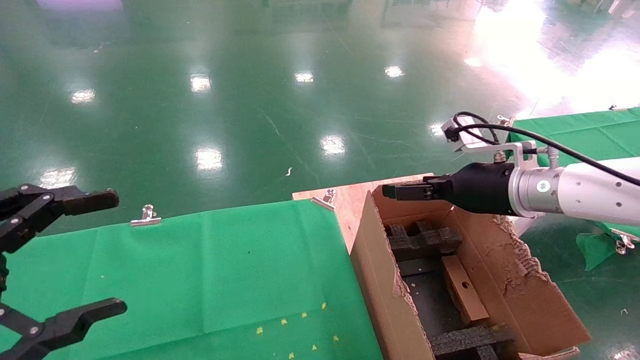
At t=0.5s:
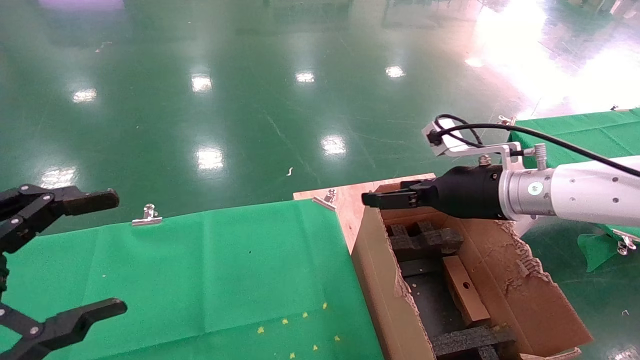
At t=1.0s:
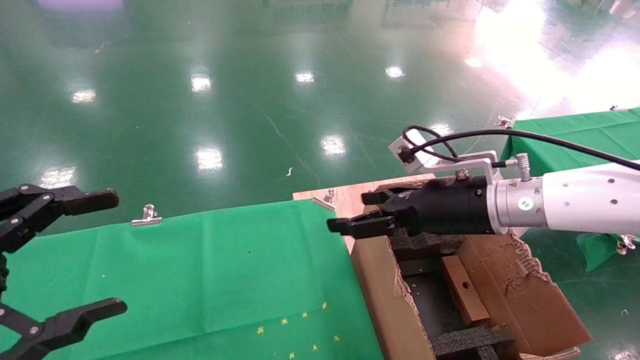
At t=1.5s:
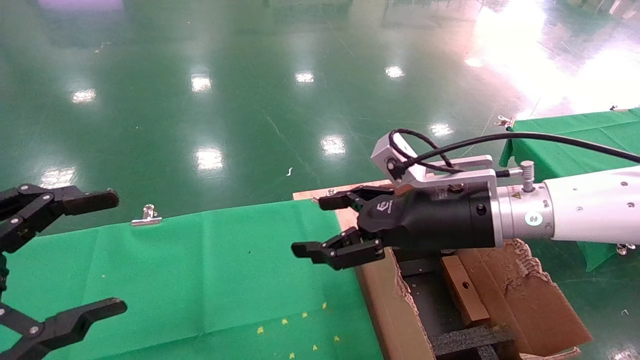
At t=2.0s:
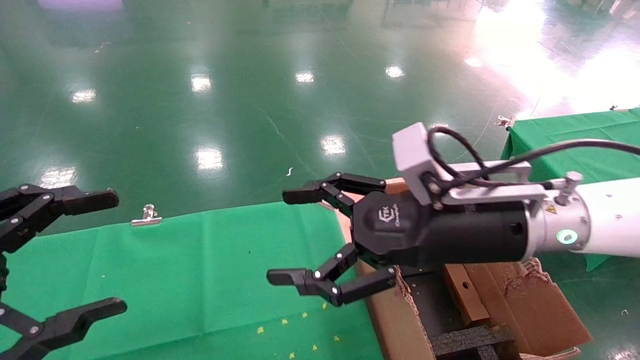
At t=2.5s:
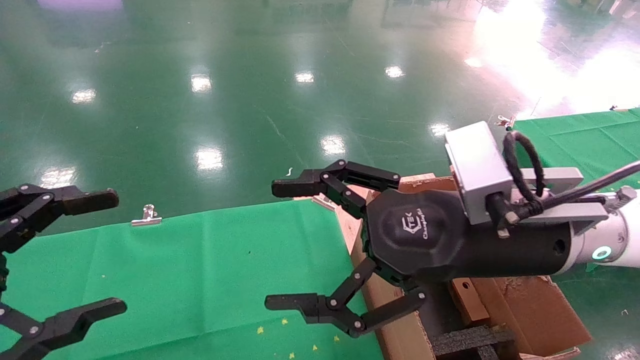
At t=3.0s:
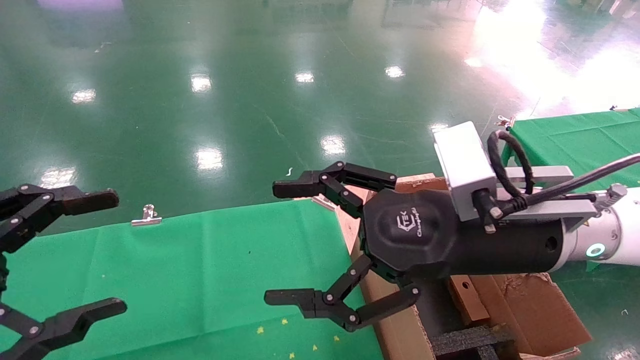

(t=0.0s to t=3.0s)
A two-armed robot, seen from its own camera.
Task of the whole recording: using a robotic arm to pick up a cardboard box and palace it the carton.
t=0.0s - t=1.5s: The right gripper heads to the left and backward, covering some 10 cm.
t=1.5s - t=3.0s: The right gripper moves backward, some 5 cm.

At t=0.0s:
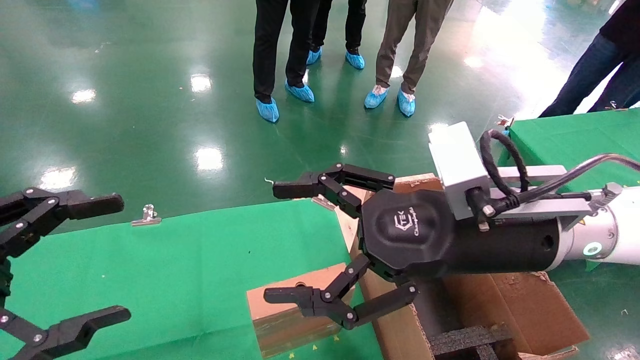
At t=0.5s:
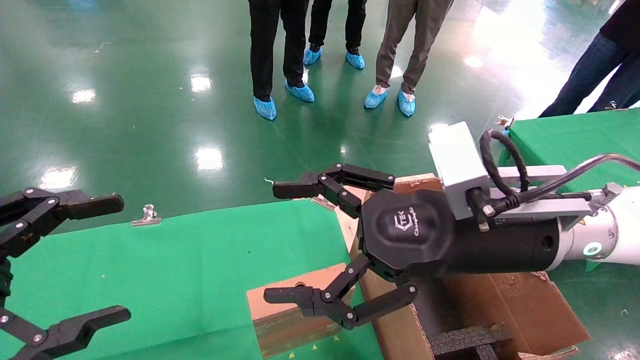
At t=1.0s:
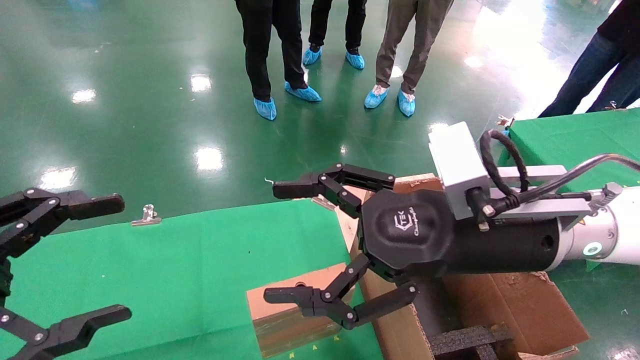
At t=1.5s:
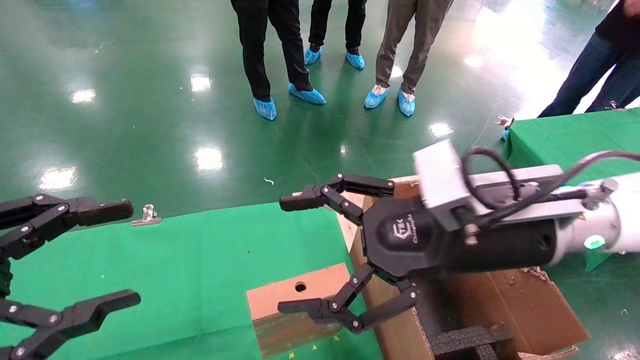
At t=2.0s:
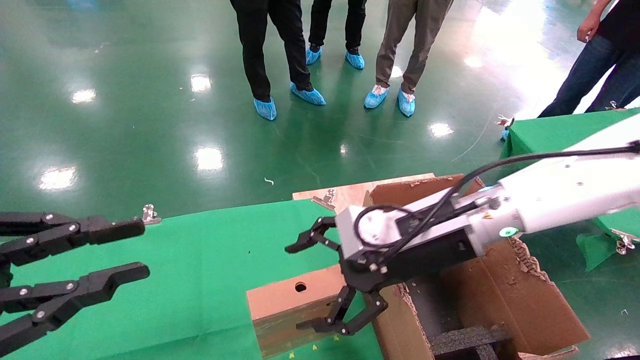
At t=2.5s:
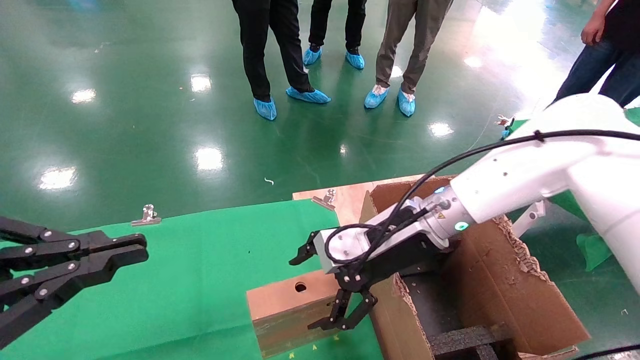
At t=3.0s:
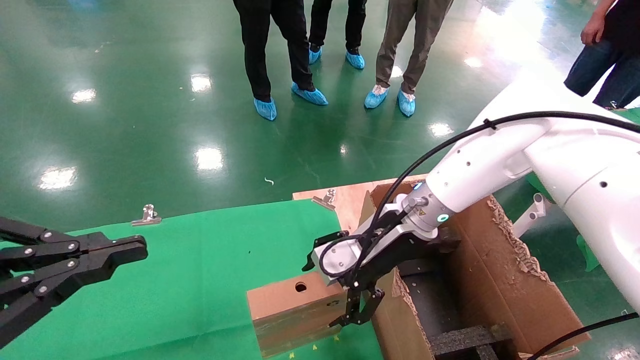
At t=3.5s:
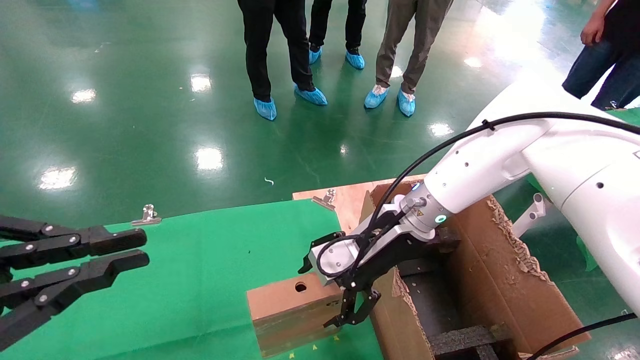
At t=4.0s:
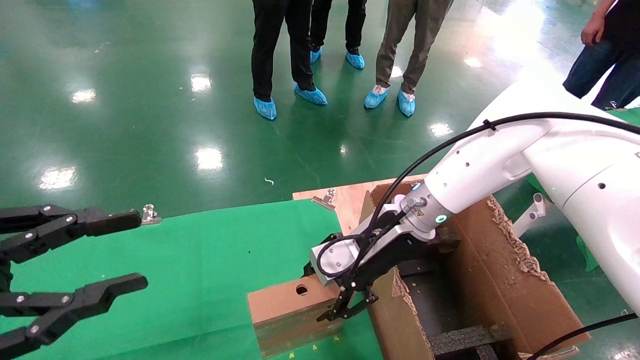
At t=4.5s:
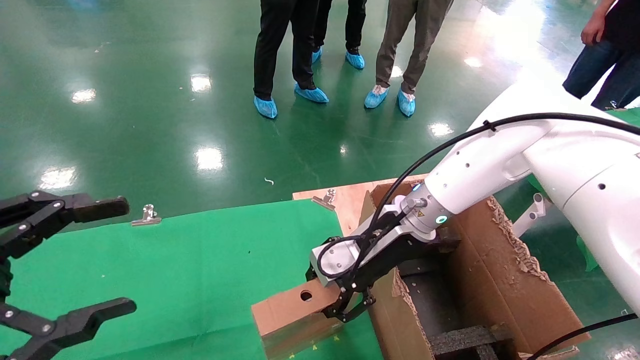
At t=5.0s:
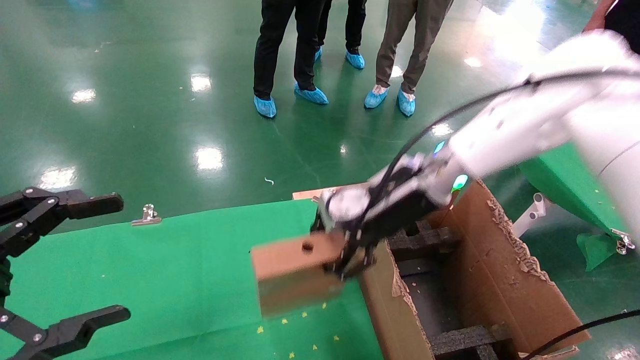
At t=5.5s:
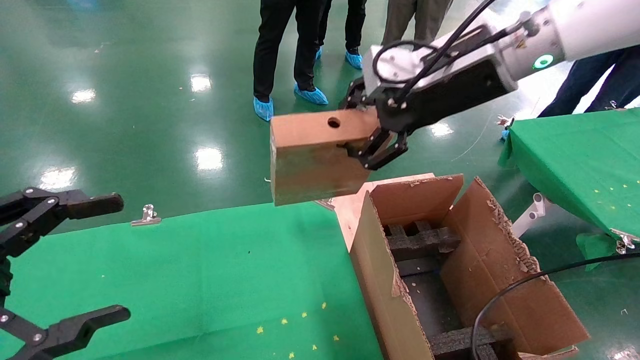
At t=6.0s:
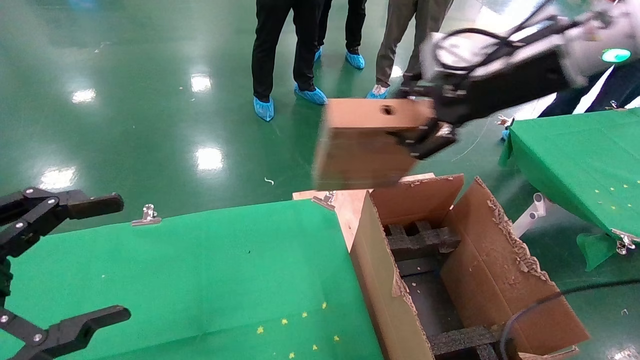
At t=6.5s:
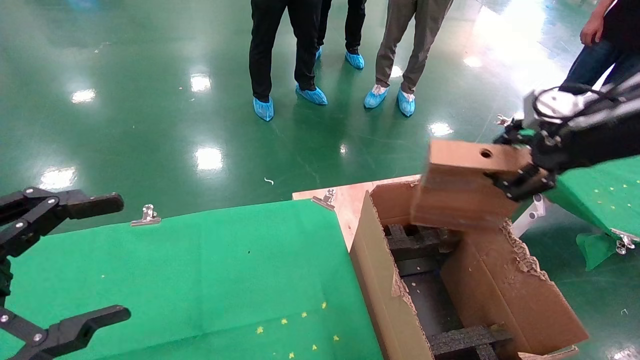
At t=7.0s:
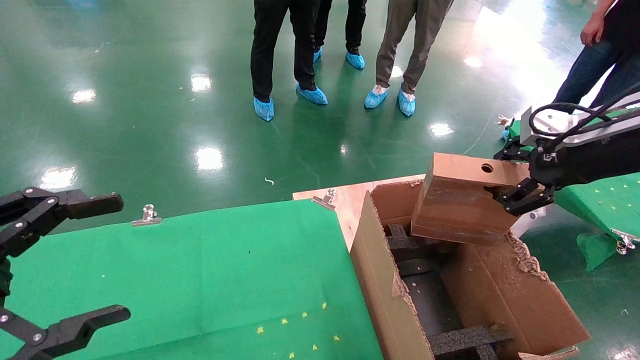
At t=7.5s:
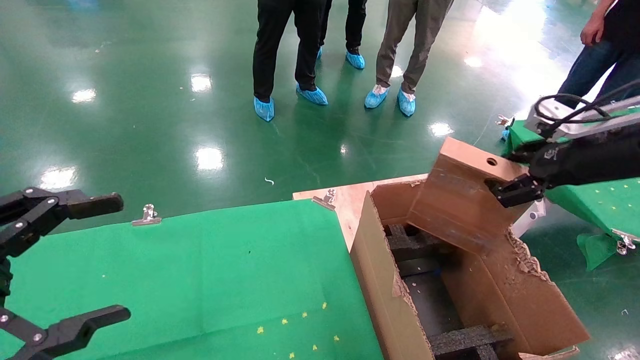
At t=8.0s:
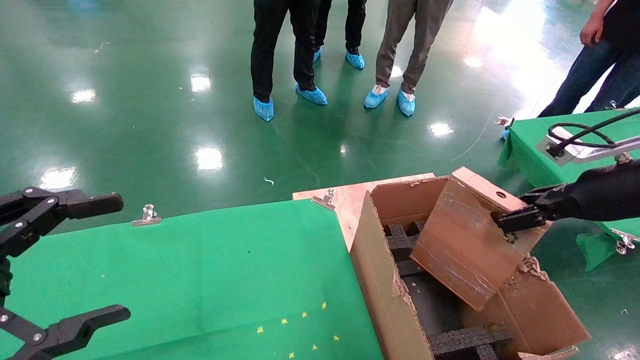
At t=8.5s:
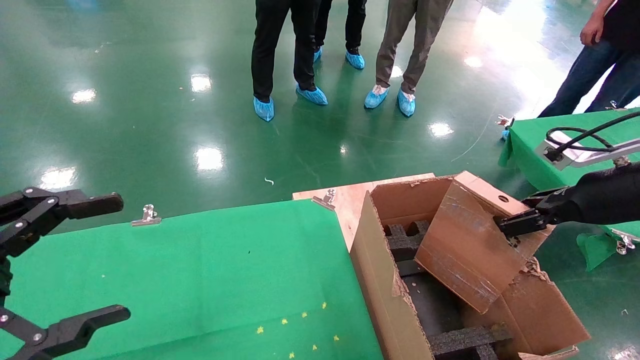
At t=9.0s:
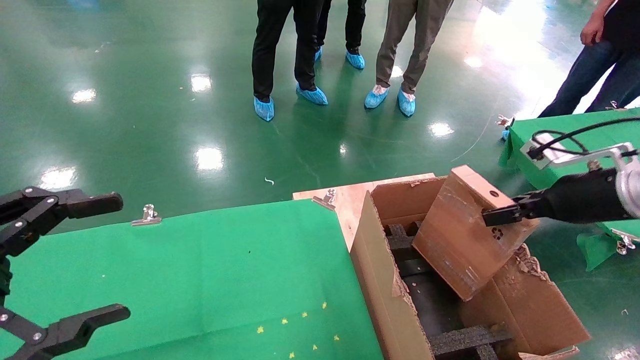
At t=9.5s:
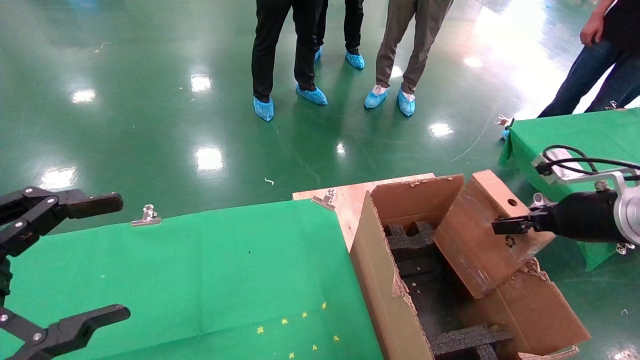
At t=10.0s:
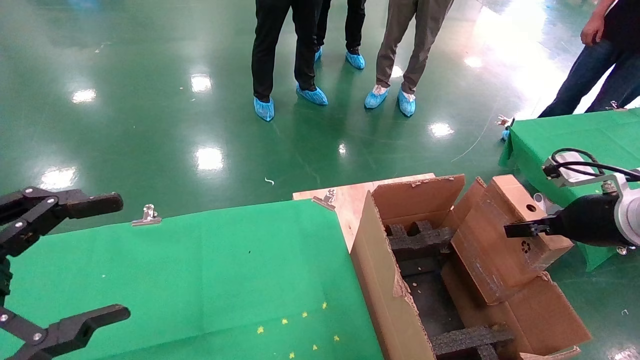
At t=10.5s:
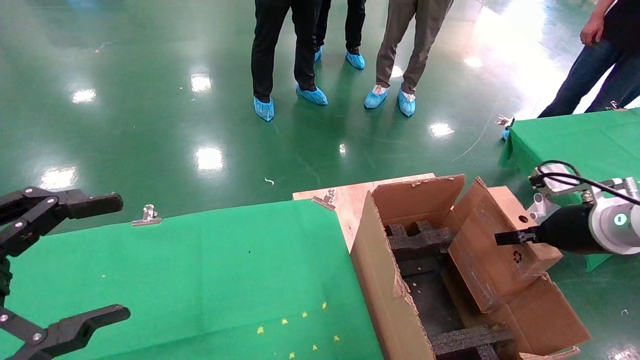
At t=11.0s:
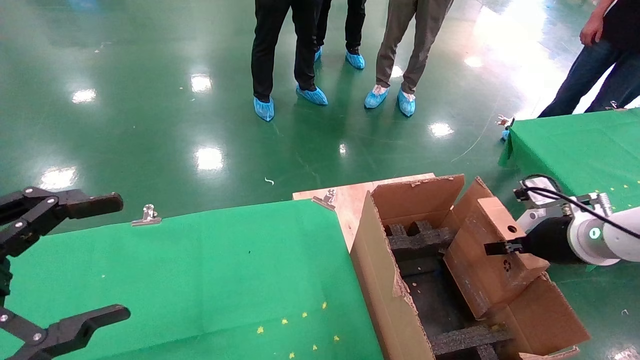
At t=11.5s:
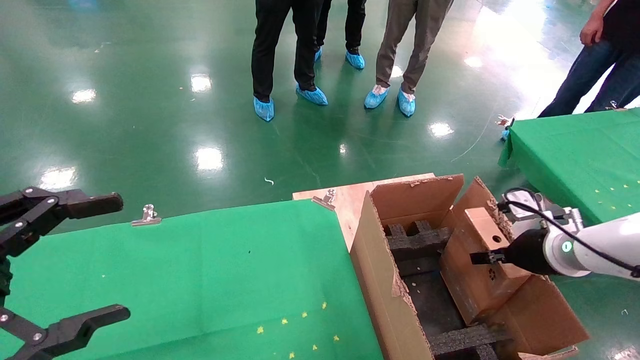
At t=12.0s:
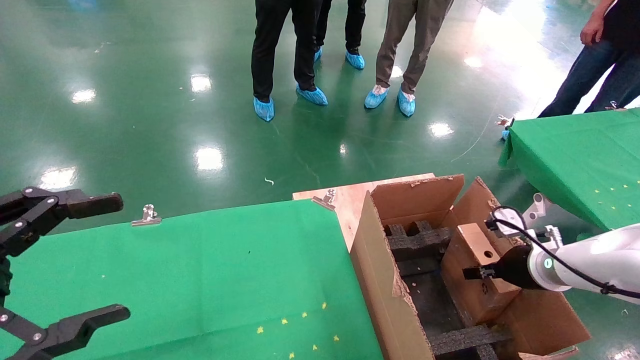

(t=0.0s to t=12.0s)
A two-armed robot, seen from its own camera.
Task of the whole recording: using a robotic arm to pick up a cardboard box and palace it the carton.
Step, t=1.5s - t=4.0s: Pick up the mouse and the power cord paper box.
t=0.0s - t=2.0s: The right gripper travels forward by roughly 5 cm; the left gripper closes its fingers.
t=2.0s - t=4.0s: The right gripper heads forward, covering some 5 cm, and closes its fingers.
t=4.0s - t=6.0s: The left gripper opens its fingers. The right gripper goes approximately 25 cm upward and to the right, and closes.
t=6.0s - t=8.0s: The right gripper moves to the right and downward, some 20 cm.
t=8.0s - t=10.0s: The right gripper is displaced downward by approximately 5 cm.
t=10.0s - t=12.0s: The right gripper shifts about 15 cm downward and forward.

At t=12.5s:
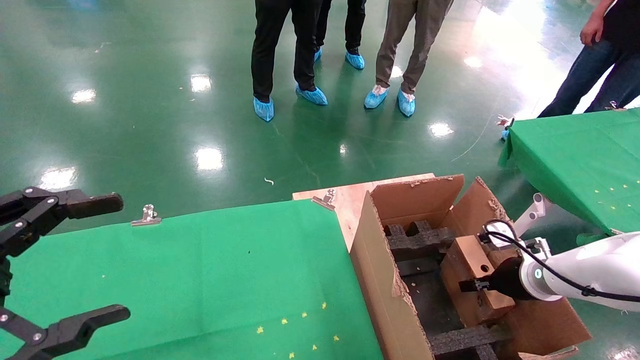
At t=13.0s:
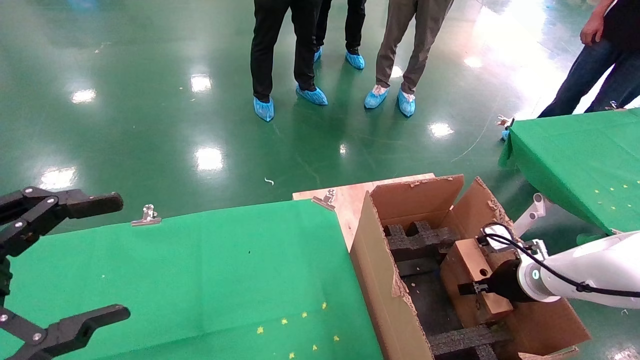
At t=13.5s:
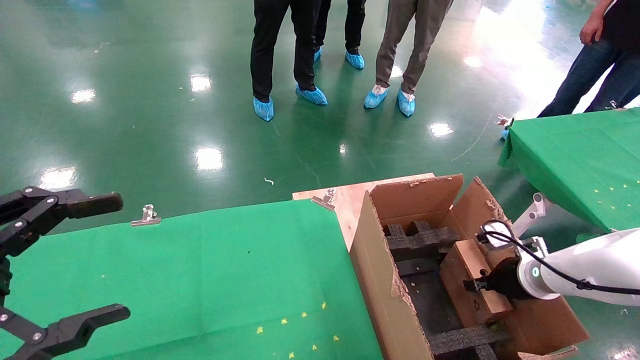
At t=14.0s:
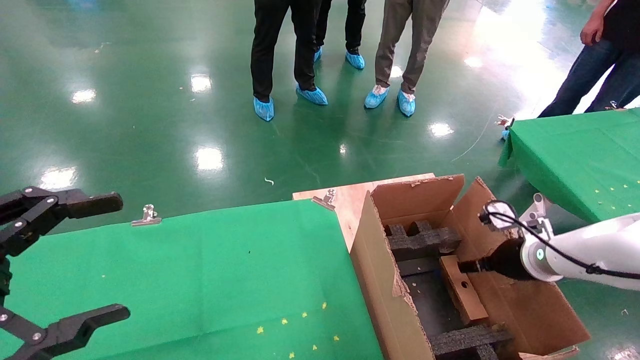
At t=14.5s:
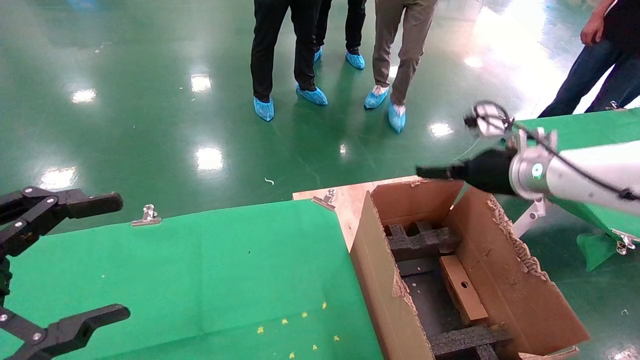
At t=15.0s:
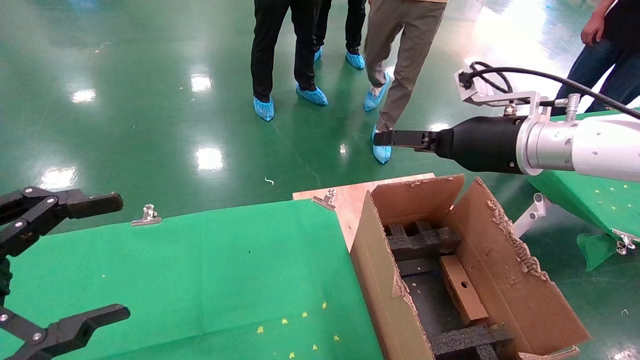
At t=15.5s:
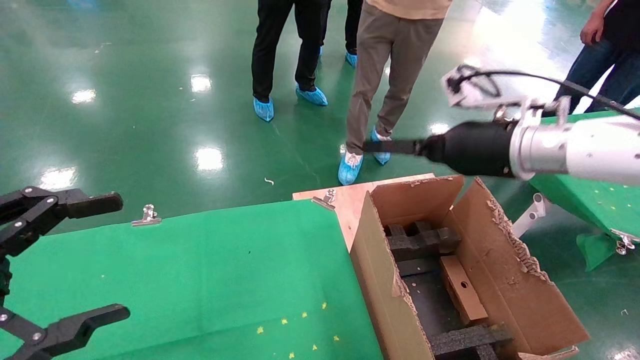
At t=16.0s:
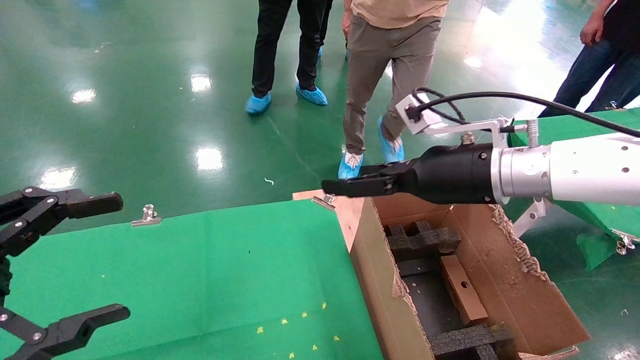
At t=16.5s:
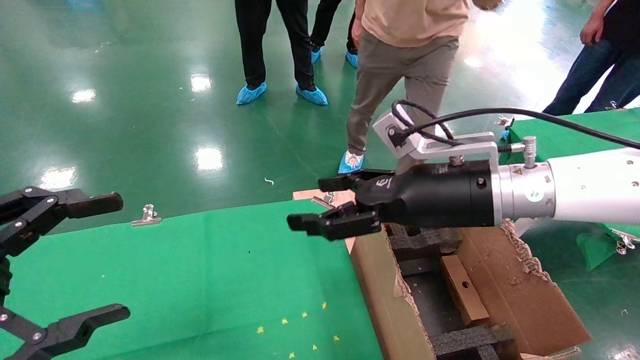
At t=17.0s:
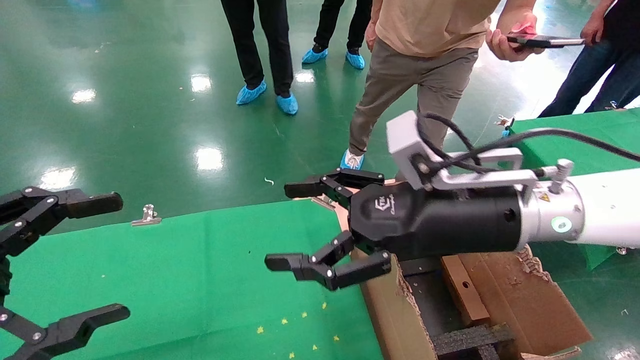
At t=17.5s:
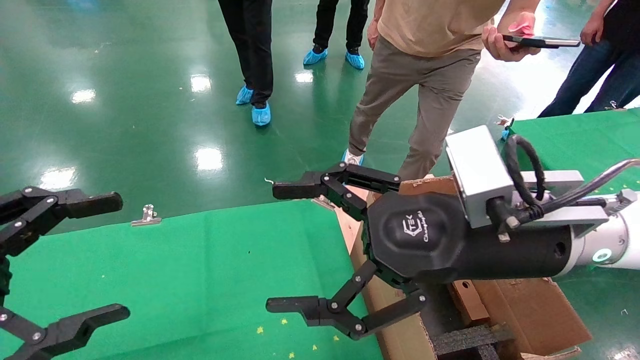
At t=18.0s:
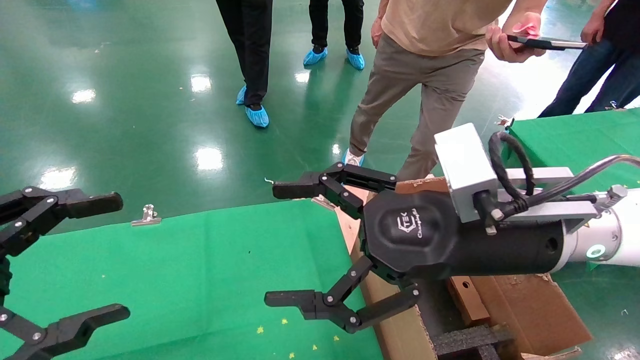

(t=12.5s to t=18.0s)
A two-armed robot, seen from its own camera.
Task of the whole recording: using a robotic arm to pick up a cardboard box and palace it the carton.
t=12.5s - t=14.5s: The right gripper goes some 15 cm upward, and opens up.
t=14.5s - t=16.0s: The right gripper heads to the left and backward, covering approximately 10 cm.
t=16.0s - t=18.0s: The right gripper travels backward by some 10 cm.
